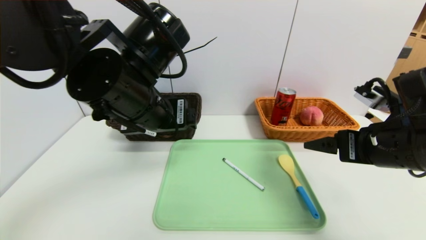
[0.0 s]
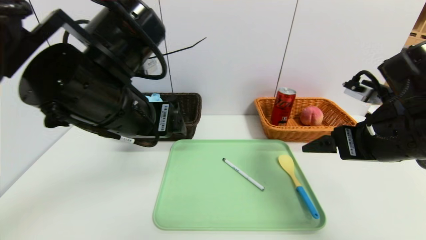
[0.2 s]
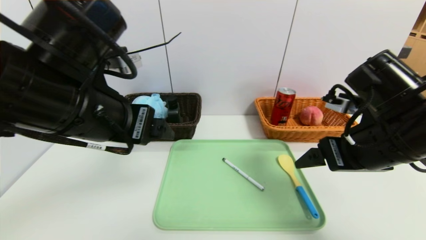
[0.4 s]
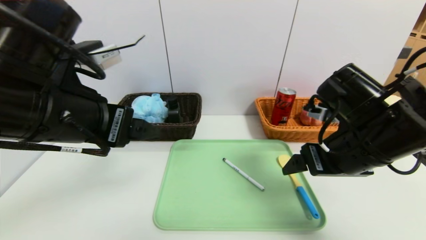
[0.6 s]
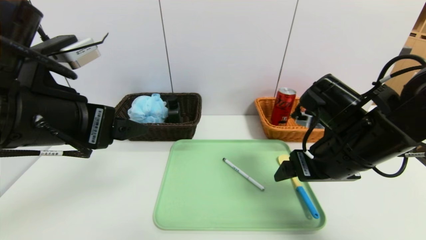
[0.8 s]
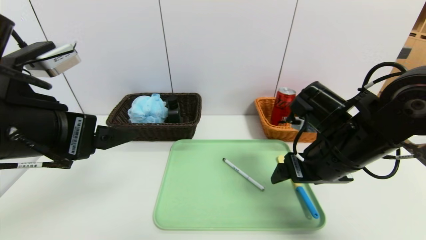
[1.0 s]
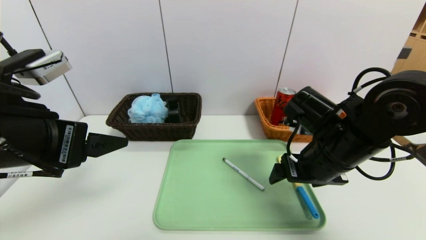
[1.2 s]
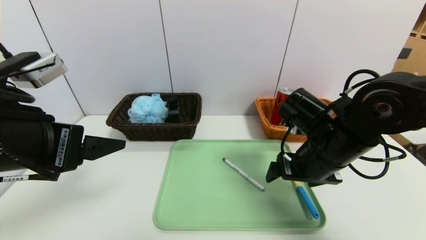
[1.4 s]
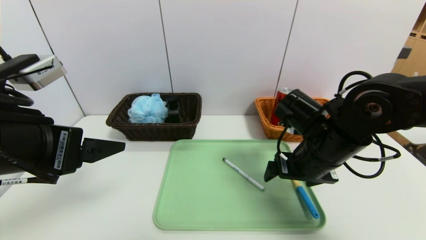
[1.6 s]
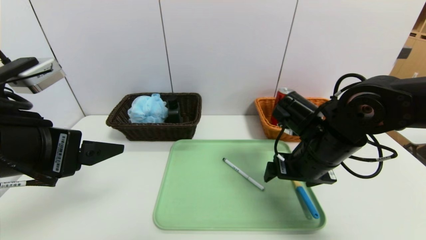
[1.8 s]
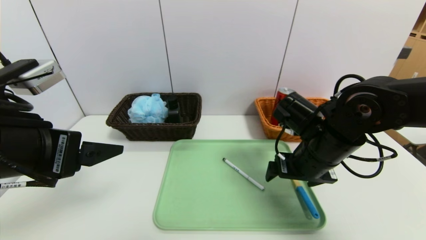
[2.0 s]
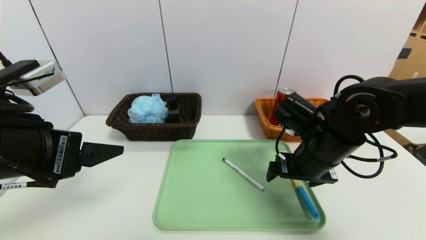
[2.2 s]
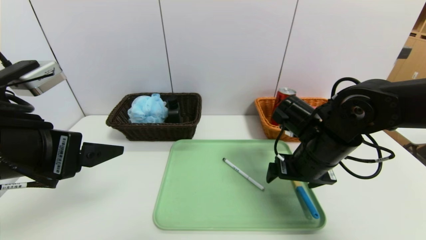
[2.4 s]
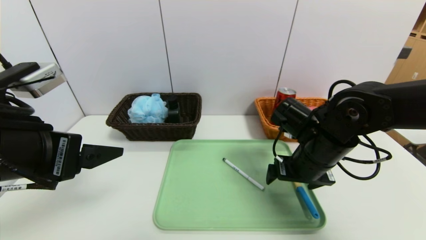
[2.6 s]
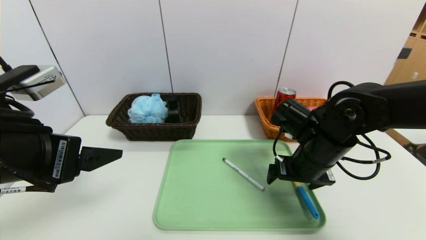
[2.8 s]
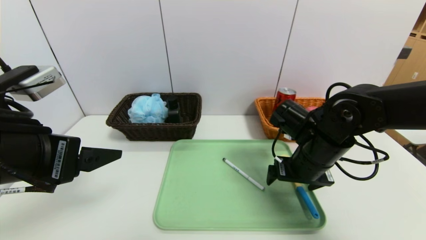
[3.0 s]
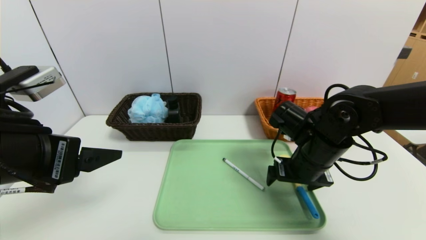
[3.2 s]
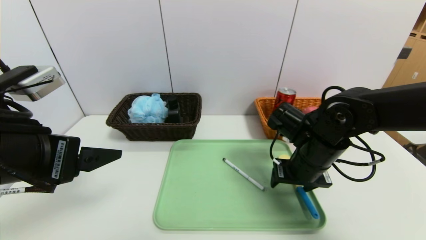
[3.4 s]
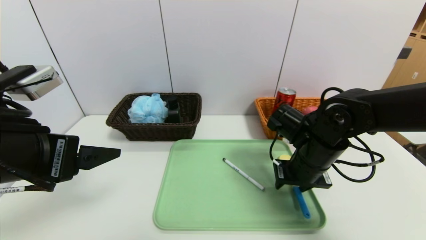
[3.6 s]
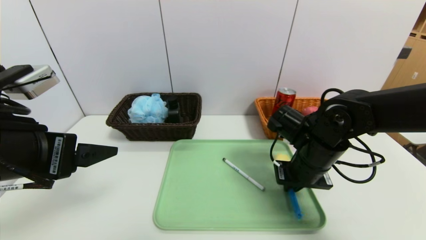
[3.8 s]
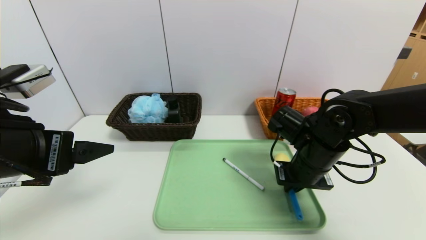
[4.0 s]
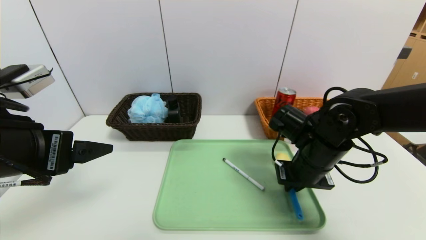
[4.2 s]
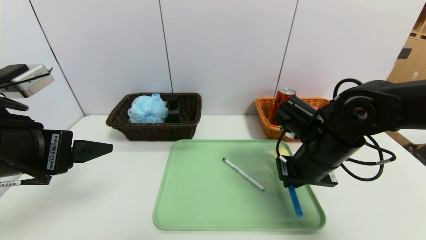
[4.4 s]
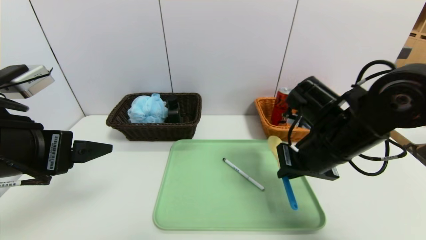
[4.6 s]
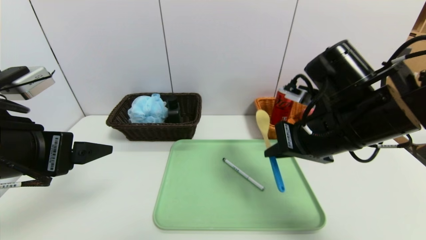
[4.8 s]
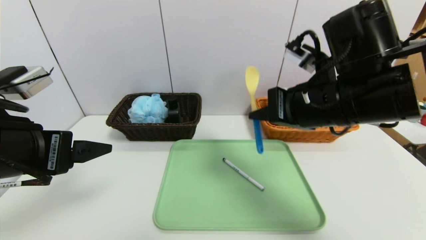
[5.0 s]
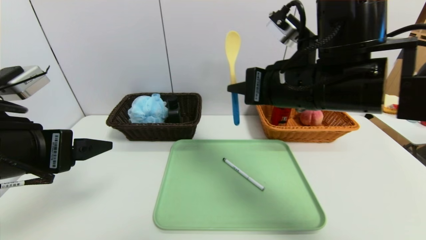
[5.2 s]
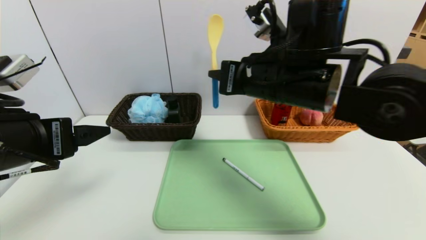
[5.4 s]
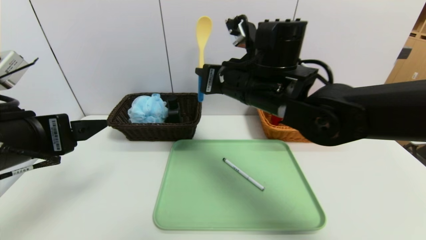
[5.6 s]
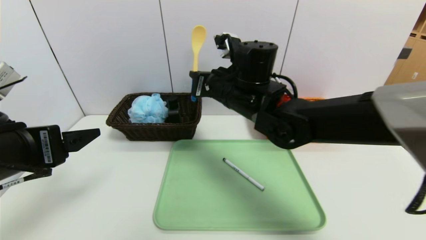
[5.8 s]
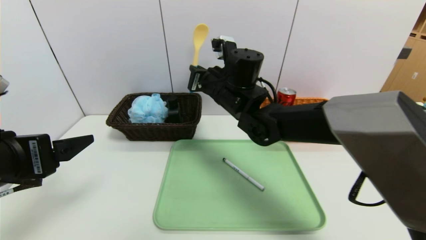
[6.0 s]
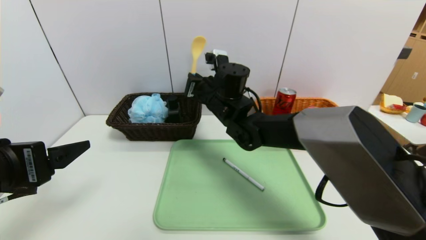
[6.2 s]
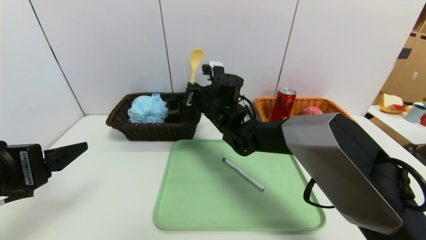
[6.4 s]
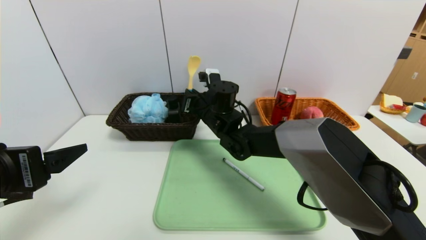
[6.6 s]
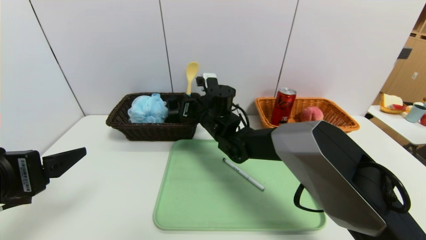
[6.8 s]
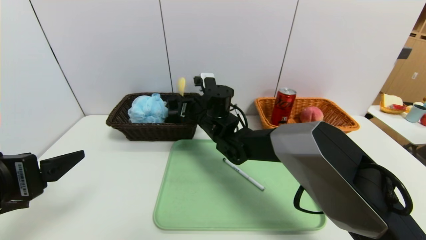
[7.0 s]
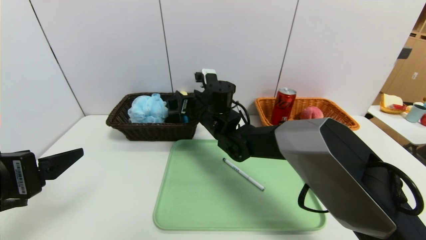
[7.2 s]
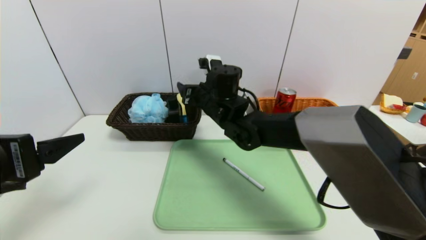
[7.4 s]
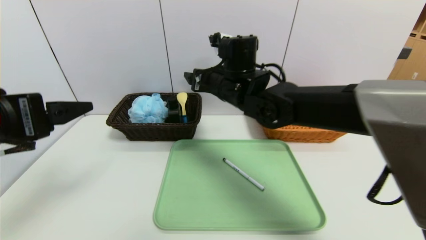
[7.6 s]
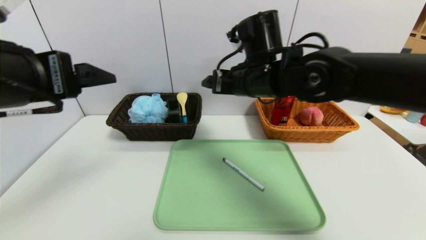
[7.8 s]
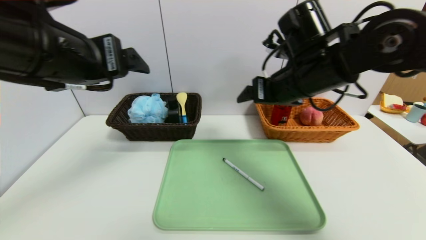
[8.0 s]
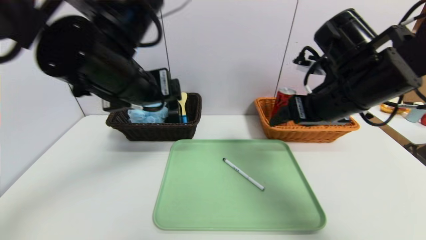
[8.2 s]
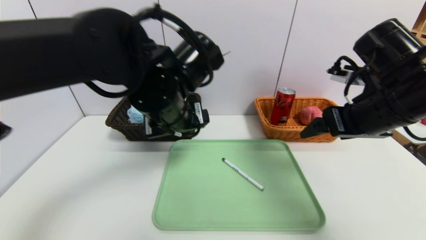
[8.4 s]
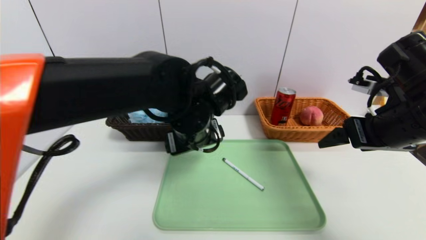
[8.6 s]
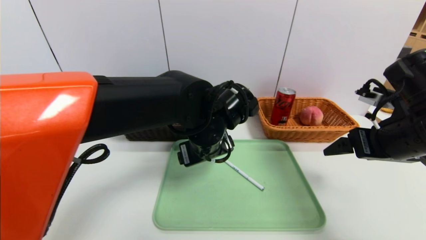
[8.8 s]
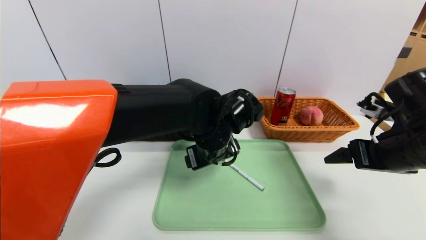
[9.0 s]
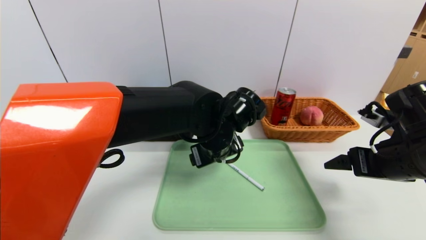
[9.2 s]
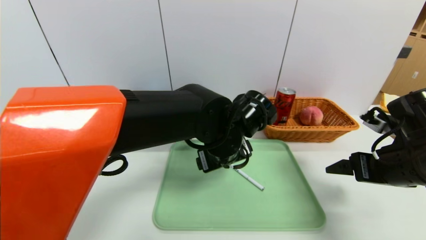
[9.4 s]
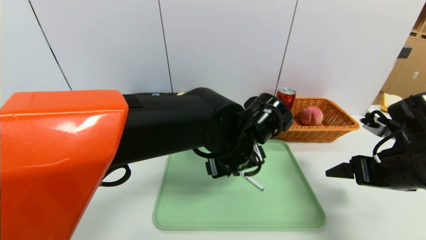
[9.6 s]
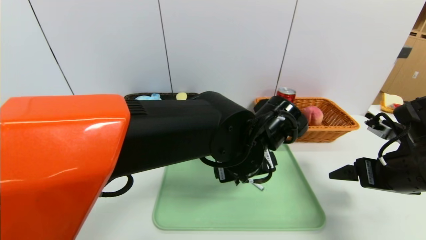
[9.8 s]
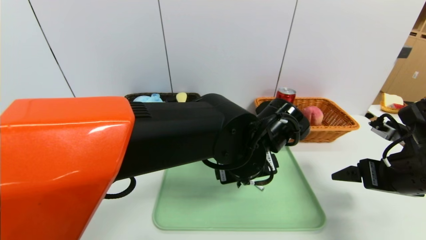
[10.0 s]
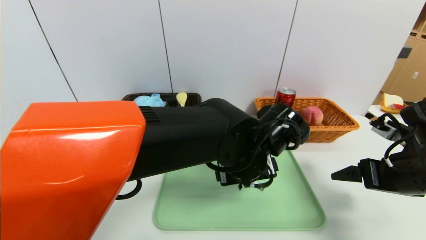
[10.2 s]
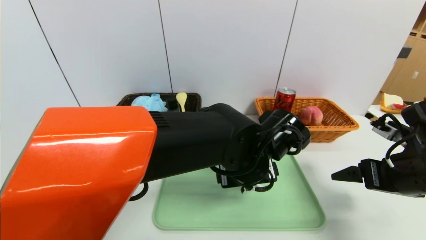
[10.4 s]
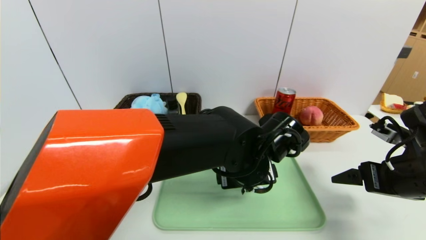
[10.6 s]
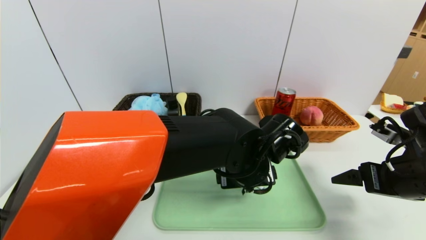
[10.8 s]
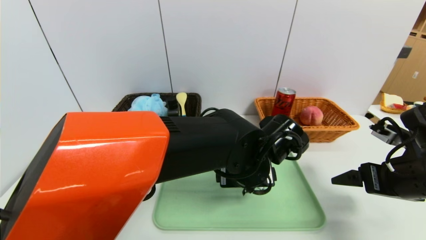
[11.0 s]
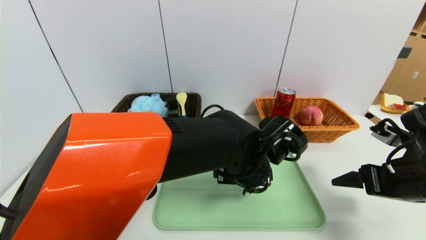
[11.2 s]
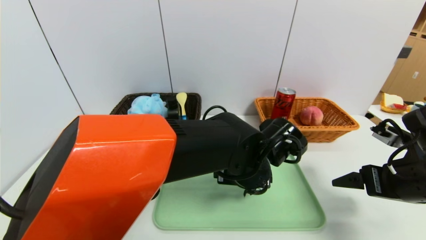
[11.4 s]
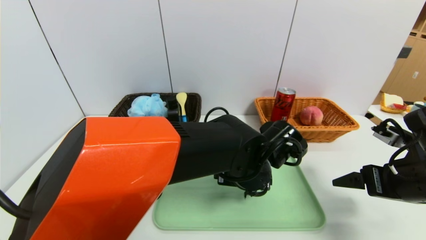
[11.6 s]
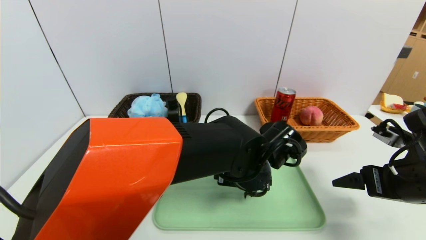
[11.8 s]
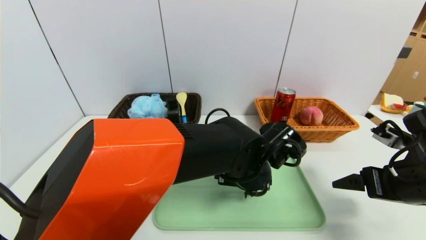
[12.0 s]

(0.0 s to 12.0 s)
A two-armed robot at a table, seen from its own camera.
Task of the whole recording: place the food in the right basket with the right gripper, and place the non food items in the left basket with the left gripper.
Step, 0.0 s - 7.6 s: Grasp the brush and put it in the left basket.
0.0 s - 1.6 s: The left gripper travels to the left and backward by some 15 cm; the right gripper shifts roughly 10 cm to the left and forward.
1.6 s - 3.0 s: The grippers move only a little.
3.0 s - 4.4 s: The right gripper closes.
4.4 s - 6.0 s: The right gripper shifts approximately 20 cm to the left, forward and upward.
6.0 s - 7.6 s: The right gripper travels downward and back again, some 10 cm each way, and opens its fingers.
7.6 s - 9.0 s: The right gripper shifts roughly 30 cm to the right and backward; the left gripper heads to the right, forward and downward, covering about 30 cm.
9.0 s - 10.4 s: The left gripper heads to the right, covering roughly 5 cm.

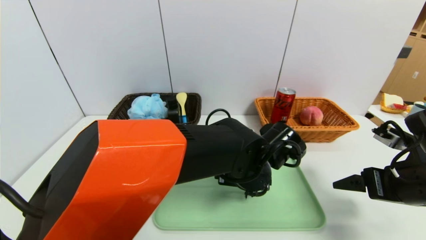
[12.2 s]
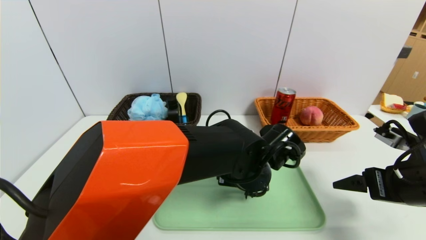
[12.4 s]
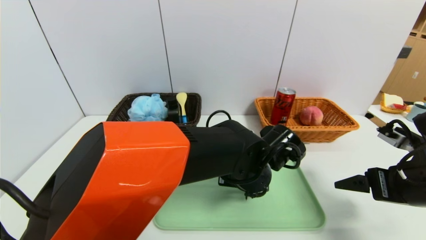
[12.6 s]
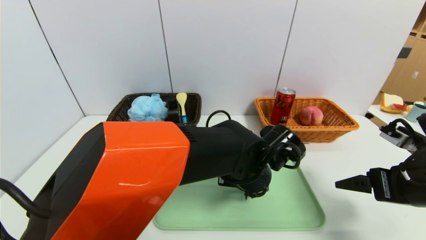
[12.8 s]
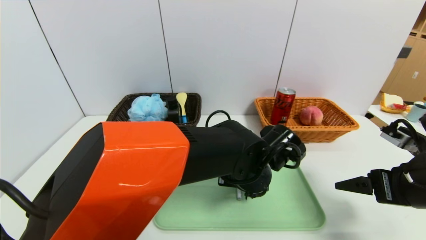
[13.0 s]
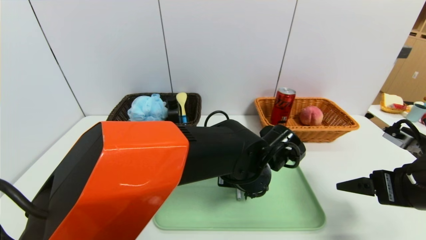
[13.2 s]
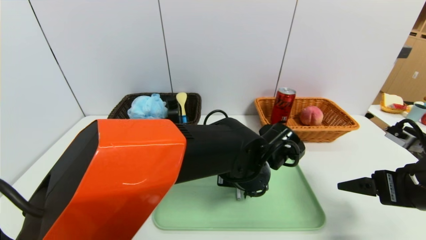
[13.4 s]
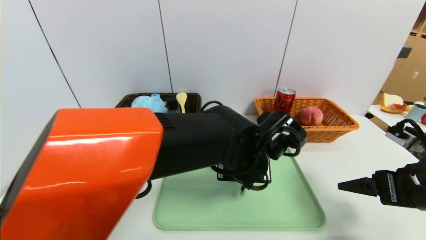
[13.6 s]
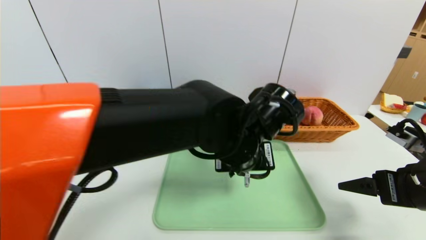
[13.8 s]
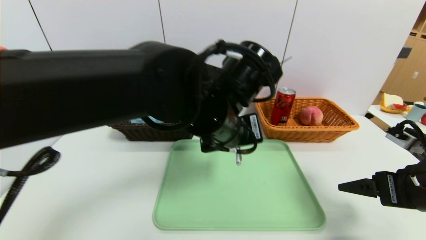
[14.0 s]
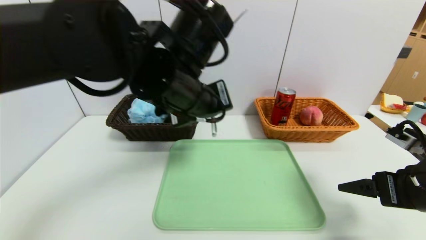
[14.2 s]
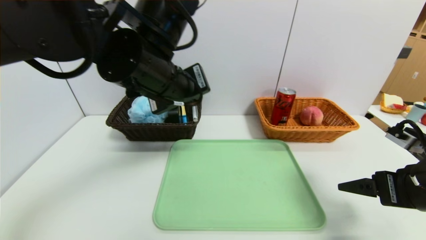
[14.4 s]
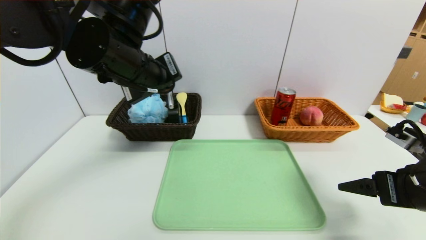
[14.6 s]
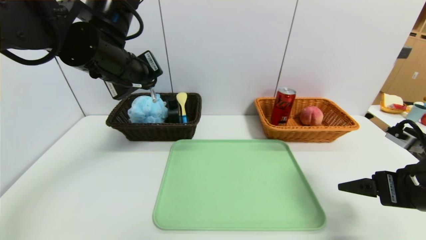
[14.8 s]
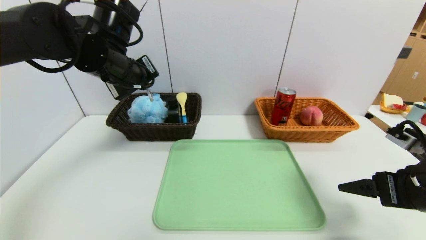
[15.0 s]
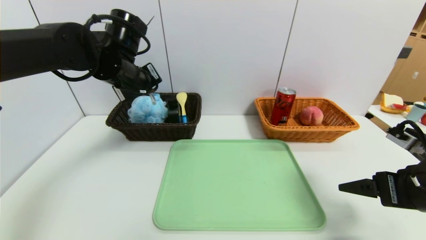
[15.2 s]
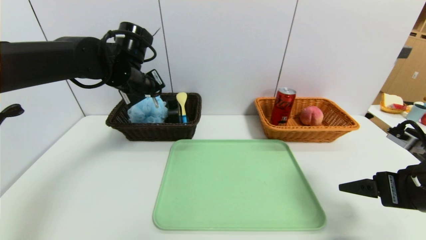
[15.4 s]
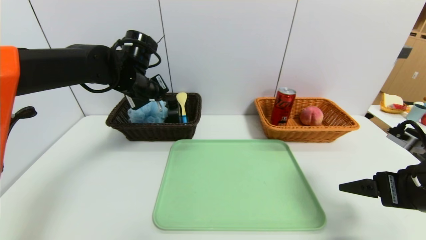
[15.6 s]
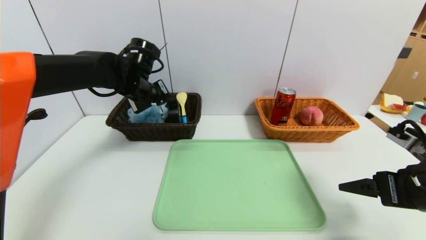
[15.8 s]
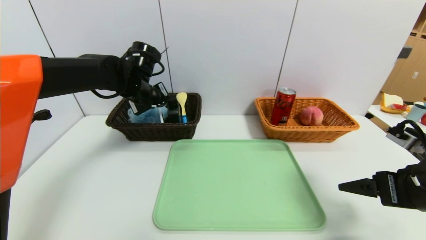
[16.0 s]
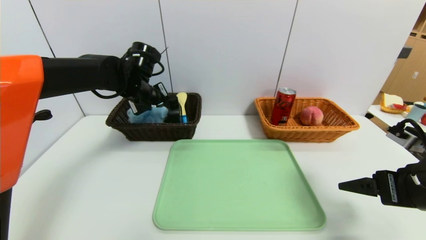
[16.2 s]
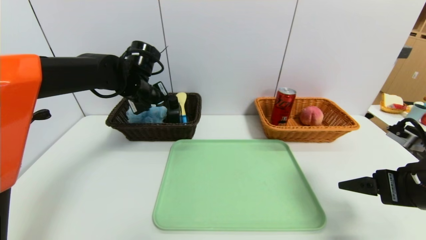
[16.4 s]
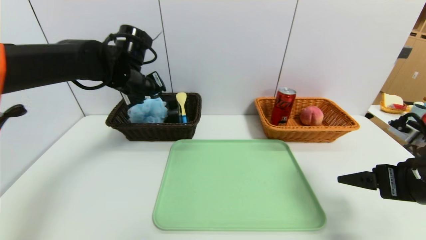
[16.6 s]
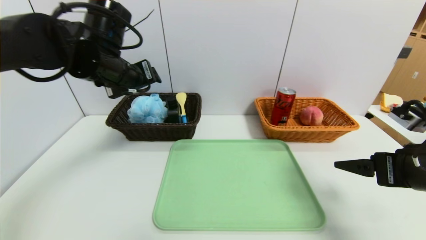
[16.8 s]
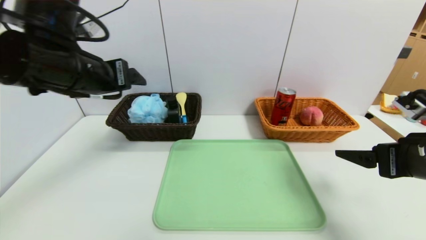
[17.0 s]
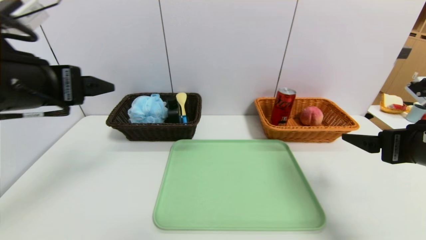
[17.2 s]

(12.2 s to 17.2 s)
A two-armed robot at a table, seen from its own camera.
Task of the whole recording: place the food in the right basket with the right gripper, and place the non food items in the left basket with the left gripper.
Step, 12.2 s - 16.6 s: Grasp the pink marker and put it in the left basket.
12.2 s - 13.8 s: The left gripper heads upward, covering roughly 5 cm, and closes its fingers.
13.8 s - 15.6 s: The left gripper moves to the left and forward, approximately 25 cm.
15.6 s - 17.2 s: The left gripper shifts approximately 25 cm backward, and opens its fingers.
